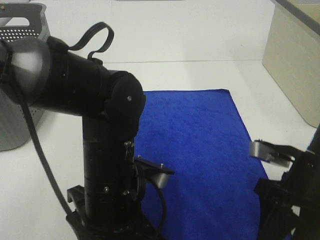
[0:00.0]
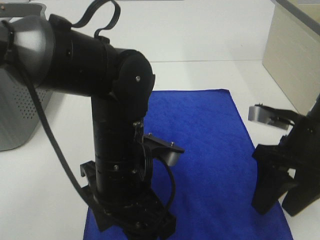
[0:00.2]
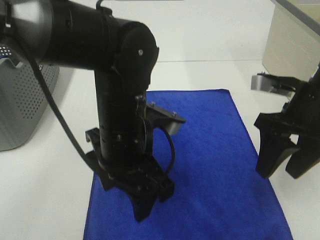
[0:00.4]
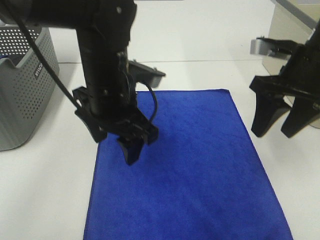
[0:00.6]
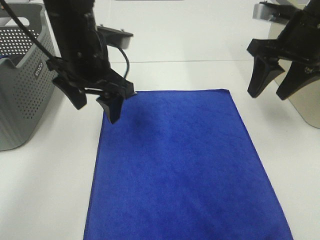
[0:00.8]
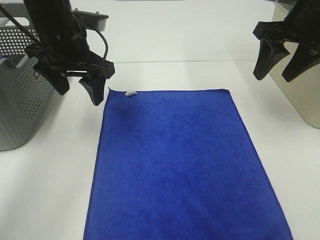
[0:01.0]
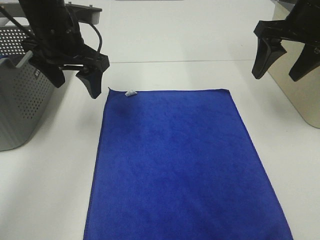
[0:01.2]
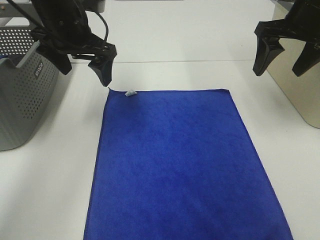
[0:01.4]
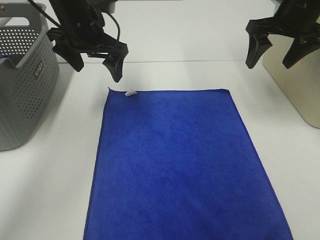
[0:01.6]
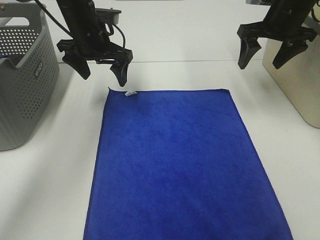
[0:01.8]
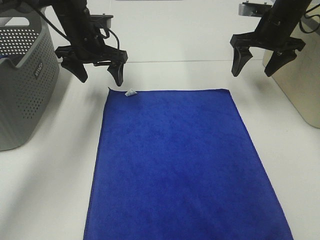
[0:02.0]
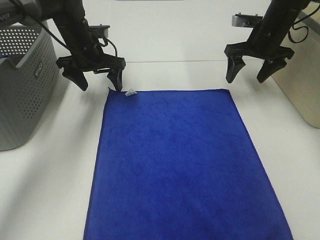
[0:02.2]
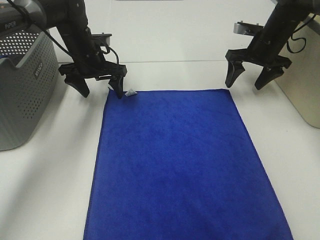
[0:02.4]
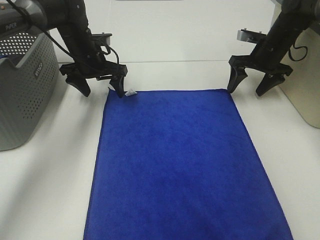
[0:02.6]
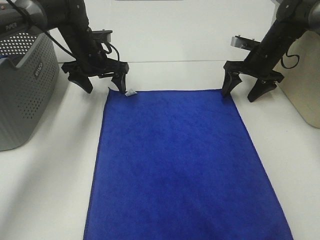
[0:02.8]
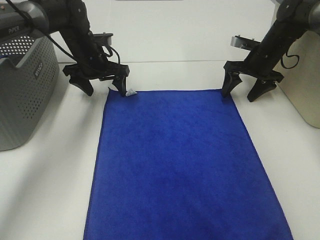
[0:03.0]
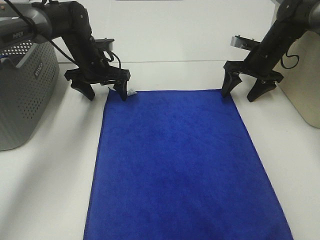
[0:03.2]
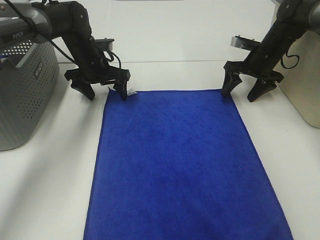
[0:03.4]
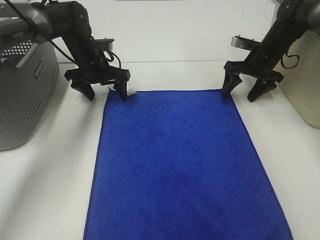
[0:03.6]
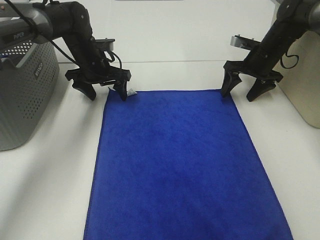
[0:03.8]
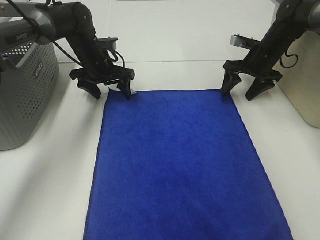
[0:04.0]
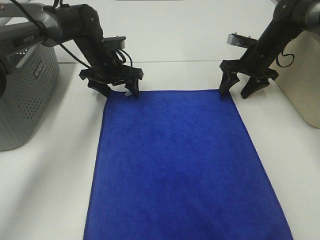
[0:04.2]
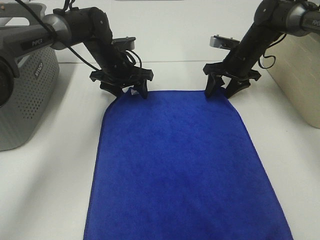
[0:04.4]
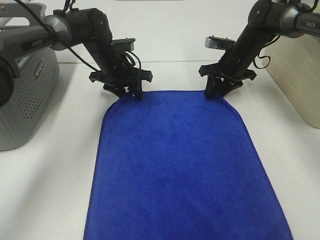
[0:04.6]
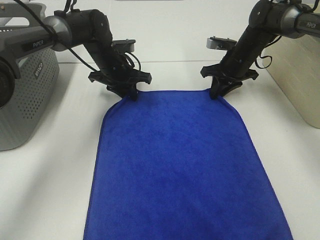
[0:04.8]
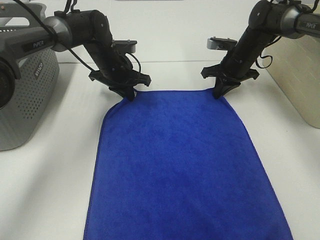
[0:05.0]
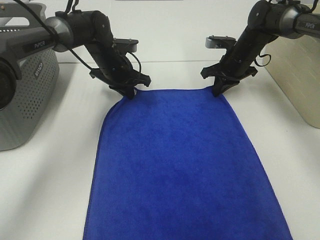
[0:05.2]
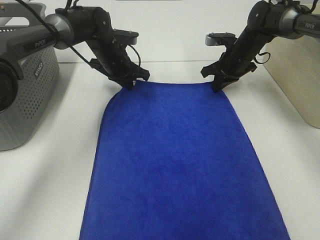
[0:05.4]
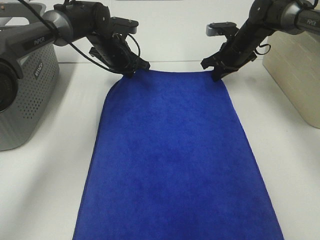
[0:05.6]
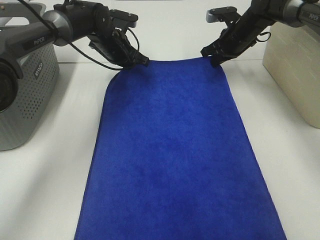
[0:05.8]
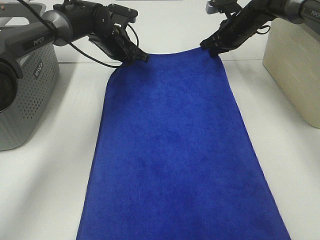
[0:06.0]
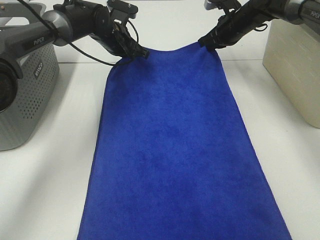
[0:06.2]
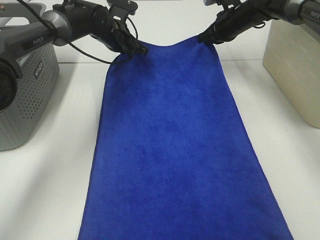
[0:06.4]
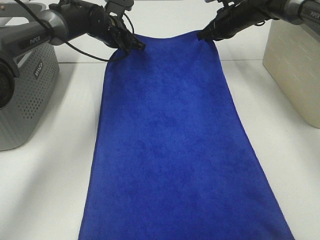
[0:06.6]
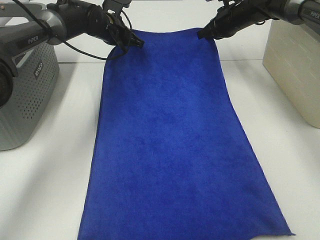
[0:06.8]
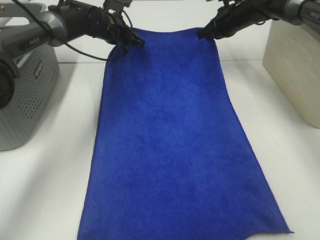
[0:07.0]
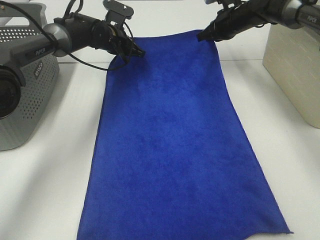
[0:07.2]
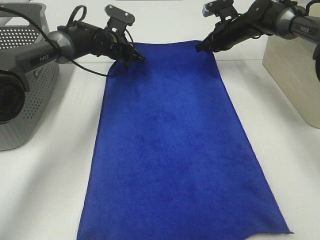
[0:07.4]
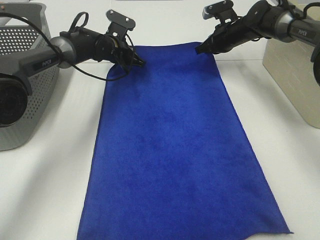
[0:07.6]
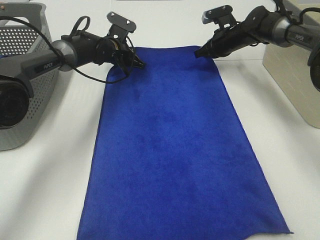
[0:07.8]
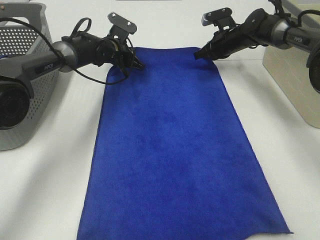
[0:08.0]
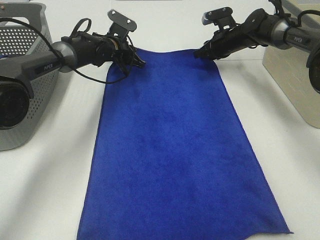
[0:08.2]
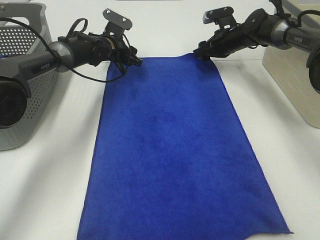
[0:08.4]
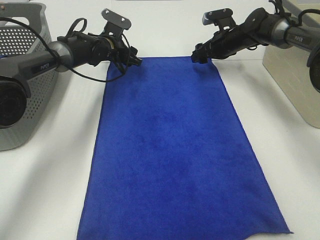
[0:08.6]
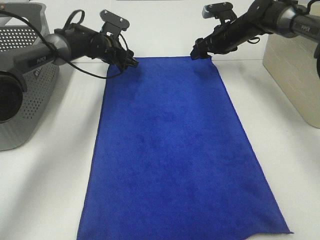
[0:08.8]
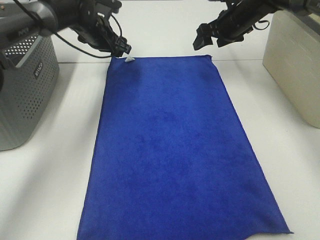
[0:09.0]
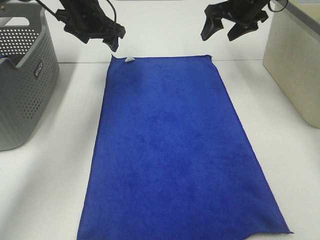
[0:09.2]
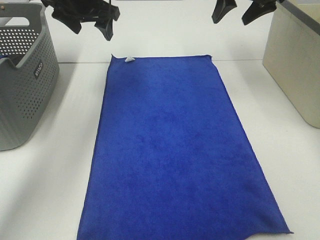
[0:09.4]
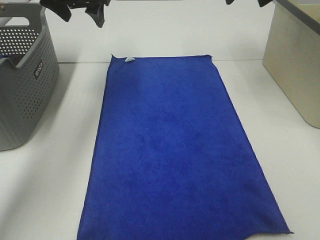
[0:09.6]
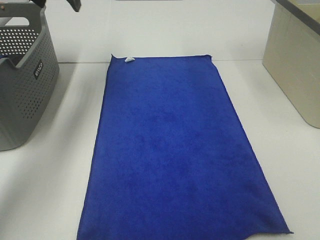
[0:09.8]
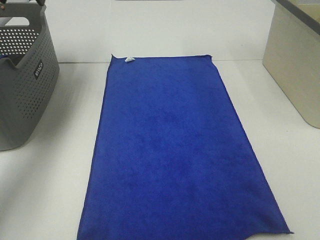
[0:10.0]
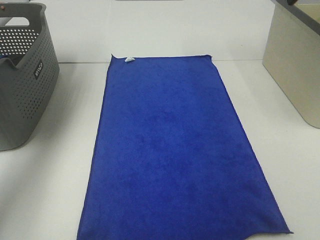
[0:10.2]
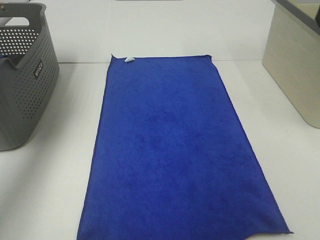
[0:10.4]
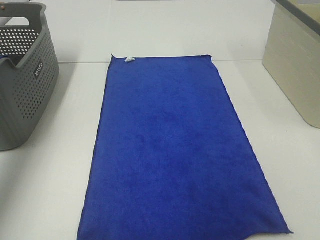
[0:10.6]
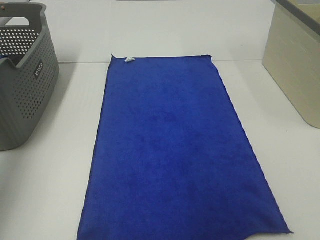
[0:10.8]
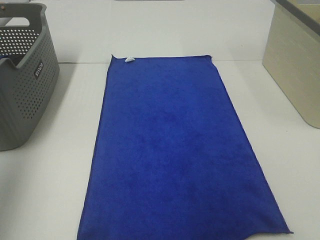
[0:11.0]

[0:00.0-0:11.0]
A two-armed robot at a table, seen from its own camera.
Task of the whole recording: Remove the towel and place it.
Step, 0.0 to 2.2 s: Left hand:adjust the blue towel.
Step, 0.0 to 2.2 s: Right hand:adjust the blue towel.
0.0 to 1.6 s: The right gripper travels forward and upward by some 25 cm, while the left gripper shifts roughly 25 cm forward.
1.6 to 3.2 s: The grippers both shift downward and forward by about 15 cm.
3.2 to 4.8 s: The left gripper closes. The right gripper shifts approximately 5 cm to the left, and closes up.
4.8 to 6.2 s: The left gripper ends up approximately 5 cm from where it was. The right gripper moves upward, about 5 cm.
6.2 to 7.8 s: Both grippers move downward, roughly 5 cm.
7.8 to 9.4 s: The grippers both shift upward and backward by some 20 cm. The right gripper opens, while the left gripper opens.
9.4 to 11.0 s: The right gripper heads backward, covering approximately 35 cm; the left gripper shifts roughly 40 cm backward, to the left and upward.

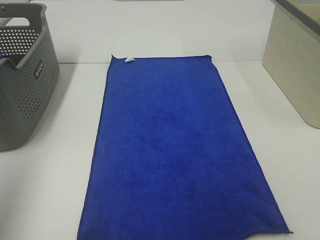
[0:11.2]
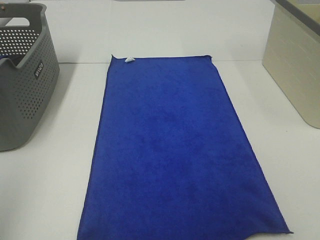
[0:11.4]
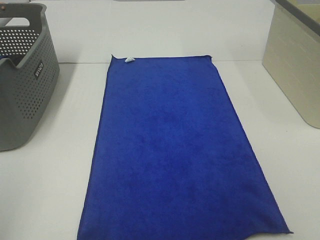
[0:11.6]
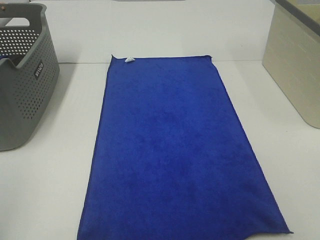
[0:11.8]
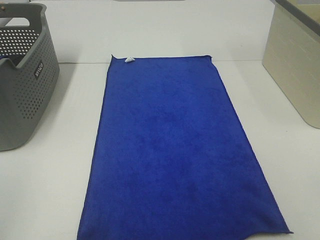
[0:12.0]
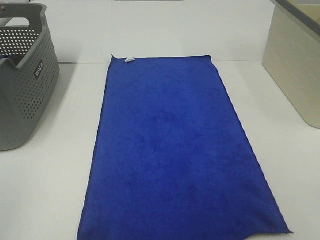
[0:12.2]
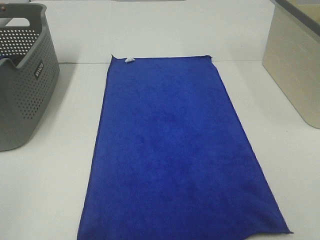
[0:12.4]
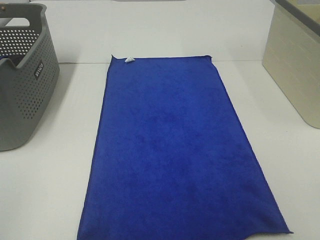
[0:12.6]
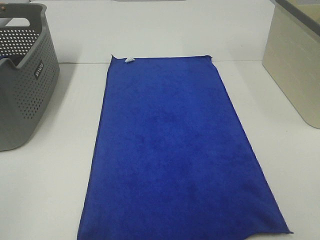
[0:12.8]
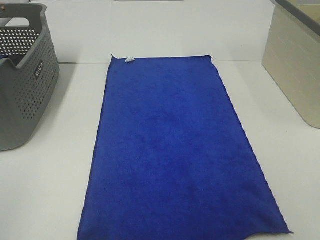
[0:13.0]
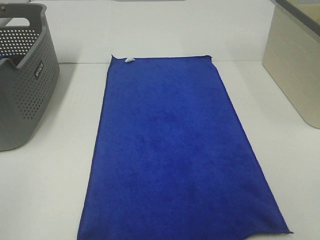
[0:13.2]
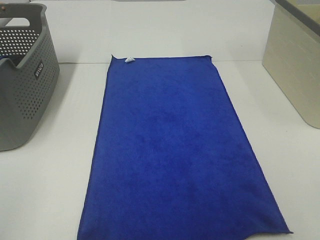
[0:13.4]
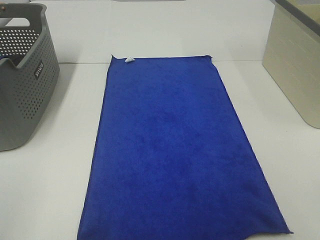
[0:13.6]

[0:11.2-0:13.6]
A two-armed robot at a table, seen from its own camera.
Task of the whole recording: Remove the towel and place it.
11.2 to 12.4 s: The left gripper goes some 20 cm backward and downward.
12.4 to 13.6 s: Neither gripper changes place.

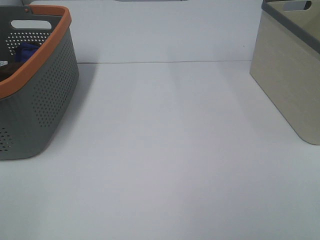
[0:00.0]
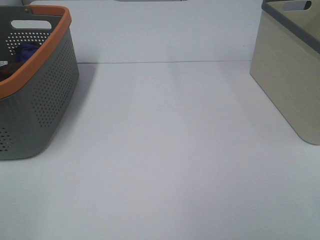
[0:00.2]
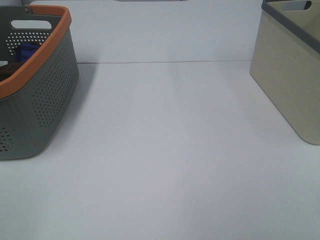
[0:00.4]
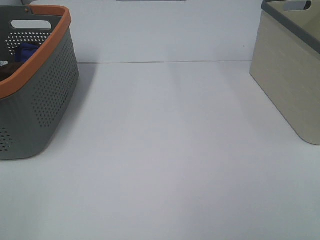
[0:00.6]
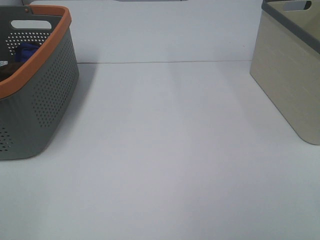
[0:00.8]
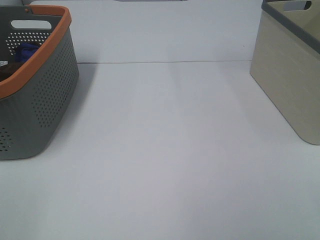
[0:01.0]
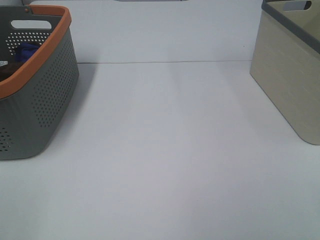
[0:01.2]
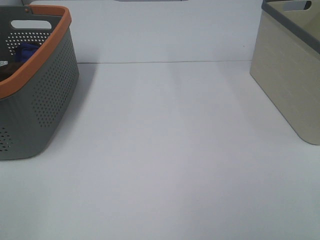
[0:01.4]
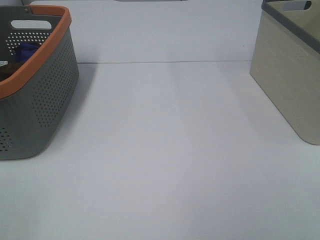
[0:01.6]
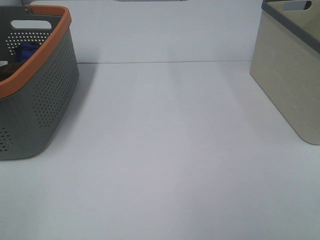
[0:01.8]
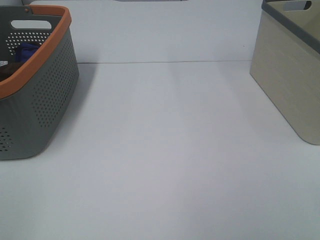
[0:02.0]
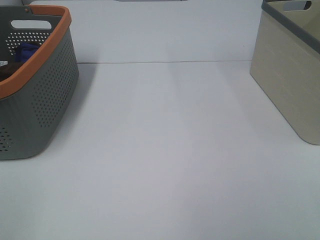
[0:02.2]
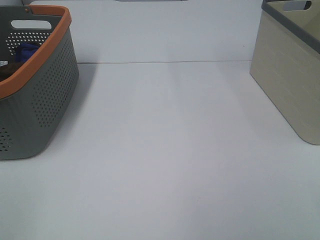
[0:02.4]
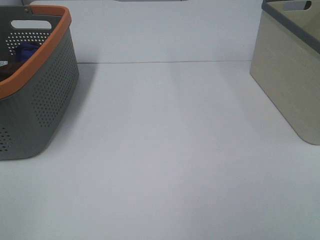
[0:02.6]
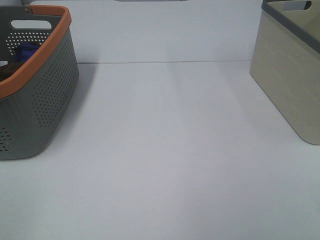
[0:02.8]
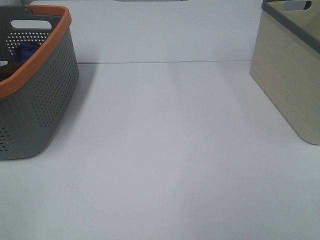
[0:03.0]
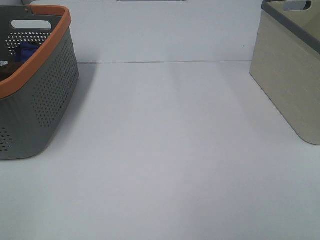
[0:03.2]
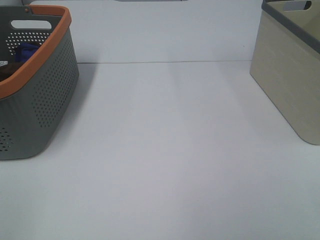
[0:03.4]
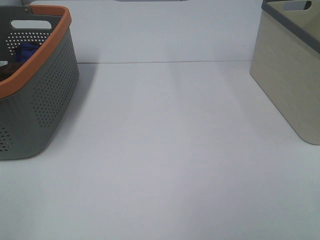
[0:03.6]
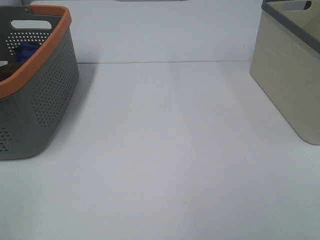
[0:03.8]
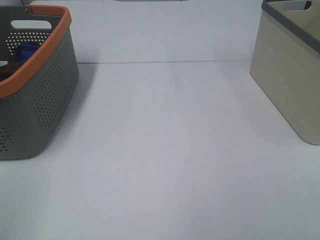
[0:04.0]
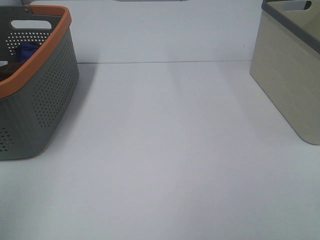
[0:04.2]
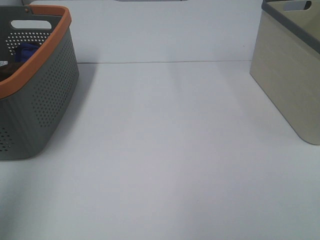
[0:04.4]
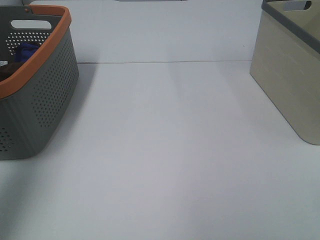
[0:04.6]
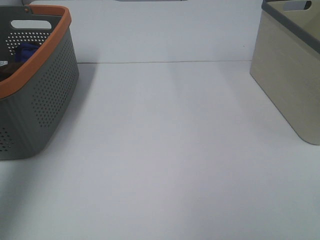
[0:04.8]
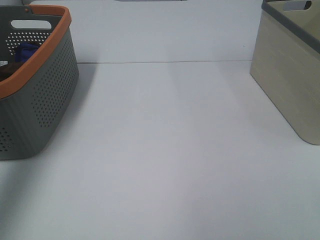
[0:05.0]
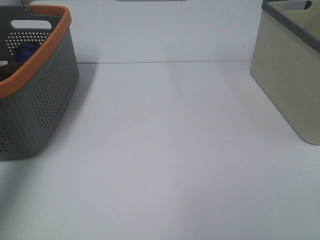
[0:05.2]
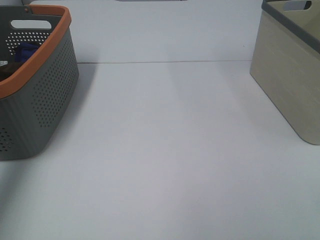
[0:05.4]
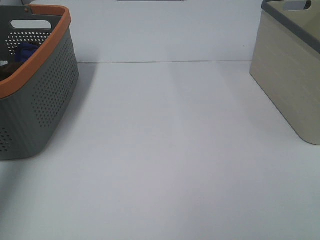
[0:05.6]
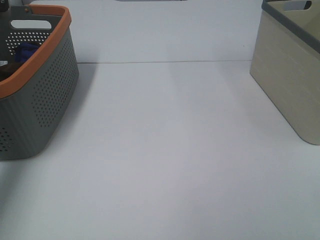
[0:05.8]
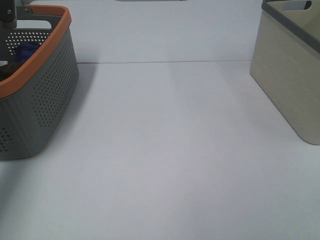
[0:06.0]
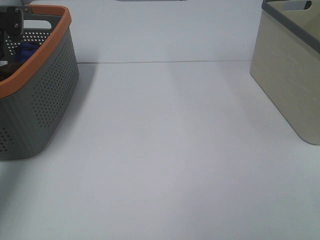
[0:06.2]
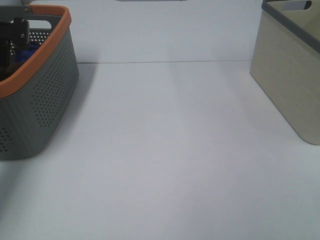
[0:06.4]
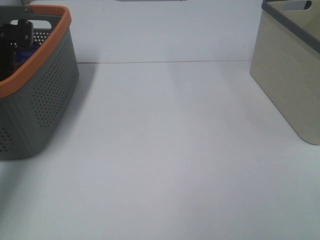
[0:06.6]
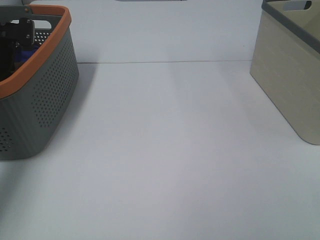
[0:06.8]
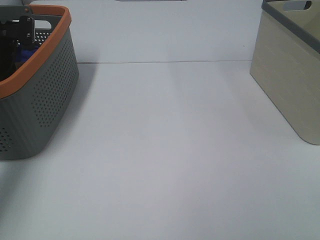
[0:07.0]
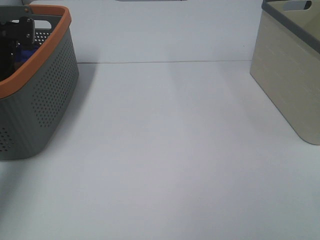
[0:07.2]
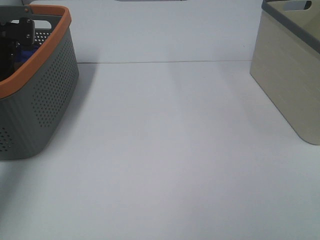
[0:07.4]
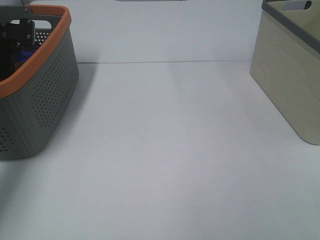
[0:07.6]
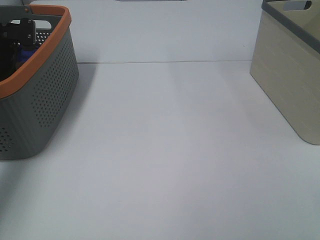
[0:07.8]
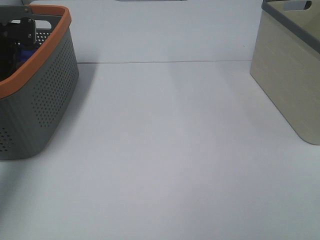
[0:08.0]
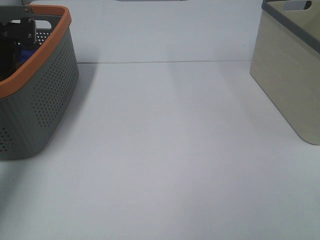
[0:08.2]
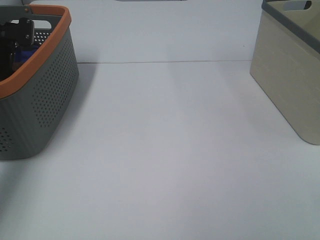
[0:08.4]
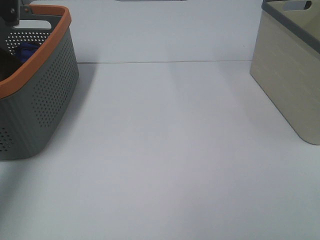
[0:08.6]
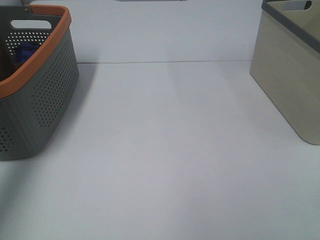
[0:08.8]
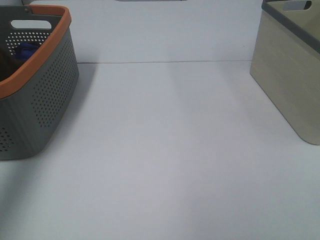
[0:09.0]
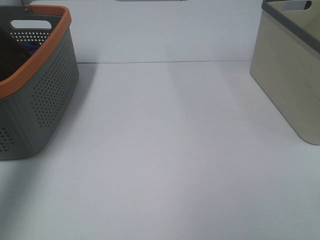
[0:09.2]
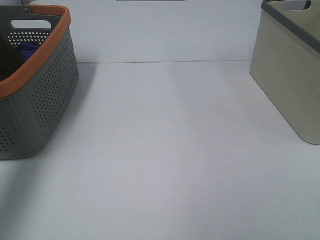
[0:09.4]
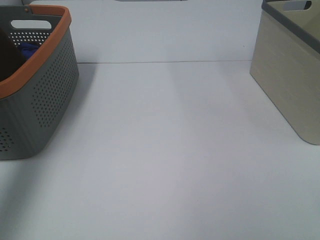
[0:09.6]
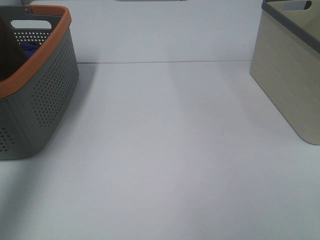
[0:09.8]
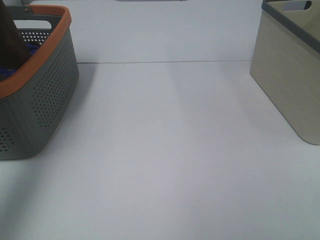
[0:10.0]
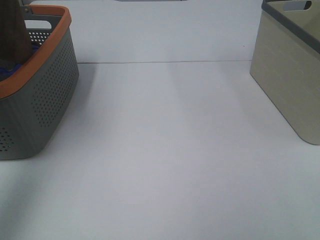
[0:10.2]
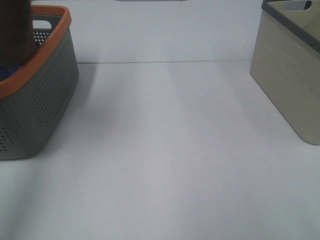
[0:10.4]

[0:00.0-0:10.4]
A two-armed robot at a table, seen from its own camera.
Task of the whole recording: Remove the towel and place it.
0.0 to 3.0 s: Both grippers stay about where they are.
3.0 to 4.4 s: The left gripper goes approximately 20 cm forward and upward.
4.4 to 6.0 s: The left gripper shifts some 35 cm forward and downward.
6.0 to 7.4 s: The left gripper ends up approximately 5 cm from where it was, and closes its fingers.
7.4 to 9.0 s: The left gripper travels upward and backward by roughly 25 cm.
9.0 to 10.4 s: The right gripper changes place by approximately 5 cm, while the left gripper shifts some 20 cm upward, to the right and backward.
